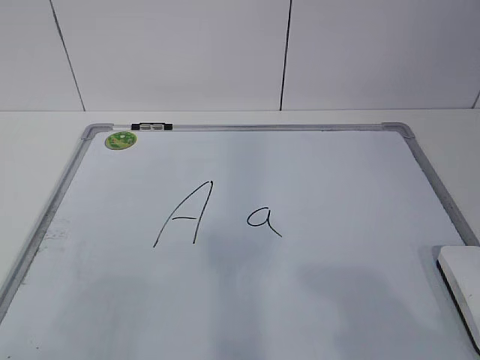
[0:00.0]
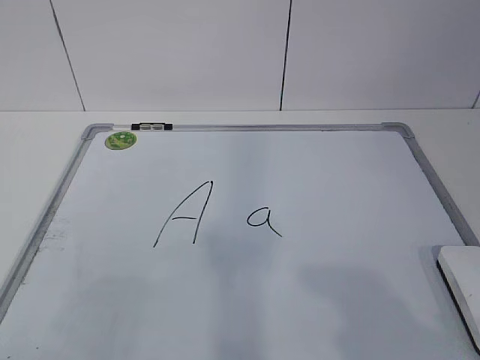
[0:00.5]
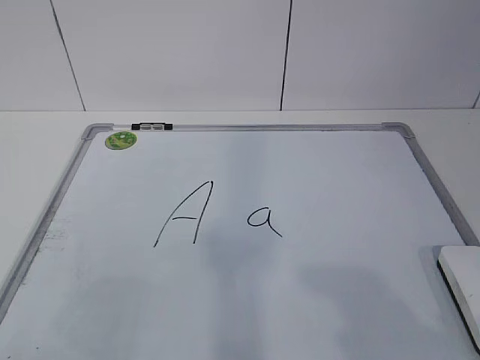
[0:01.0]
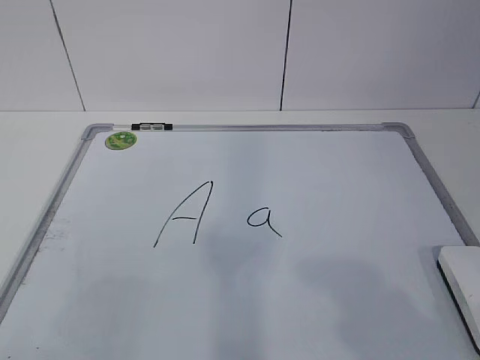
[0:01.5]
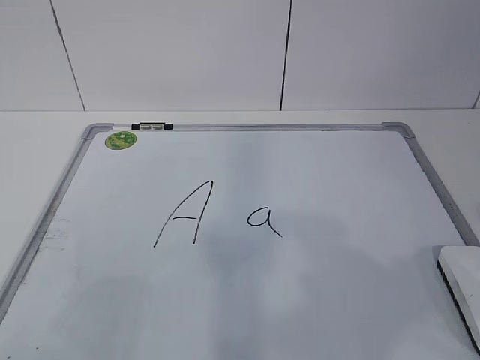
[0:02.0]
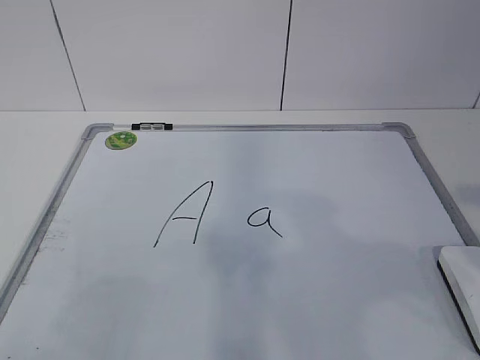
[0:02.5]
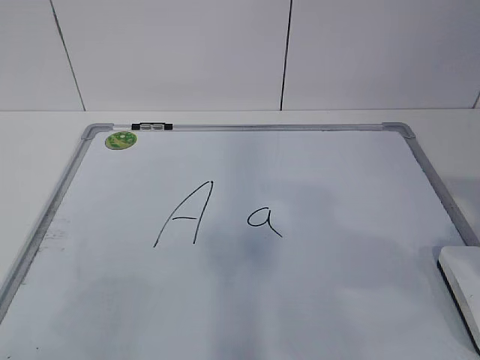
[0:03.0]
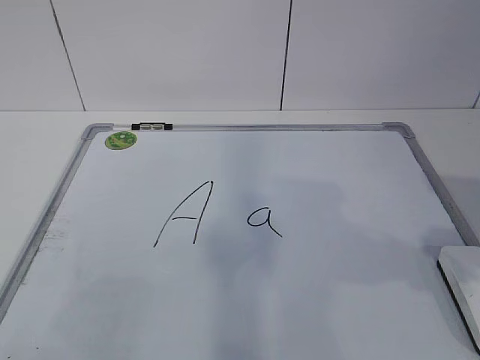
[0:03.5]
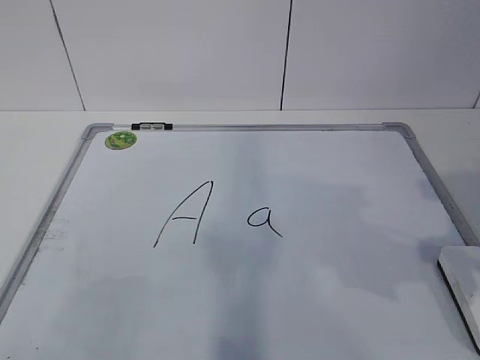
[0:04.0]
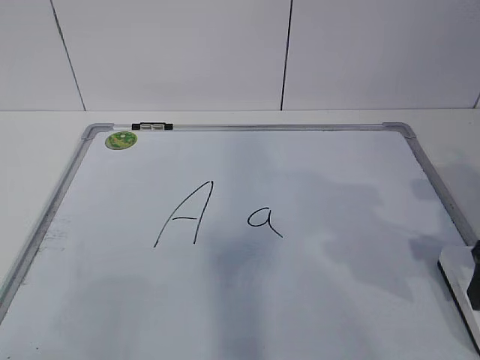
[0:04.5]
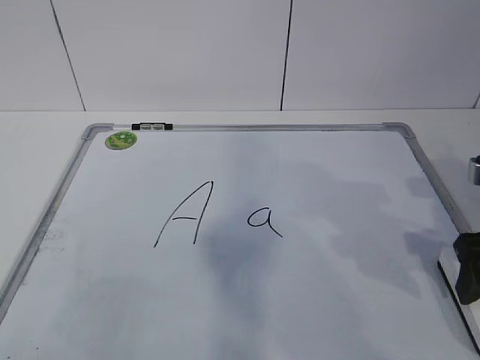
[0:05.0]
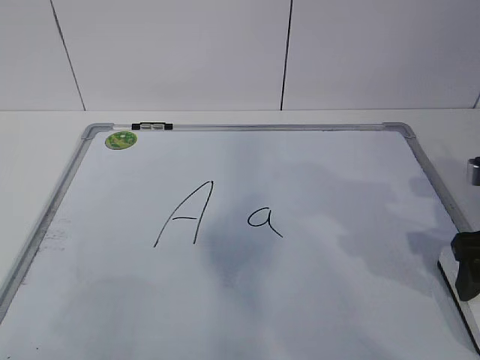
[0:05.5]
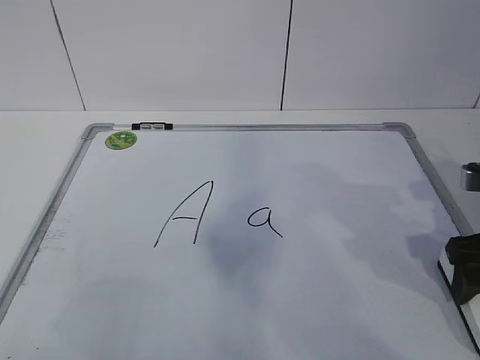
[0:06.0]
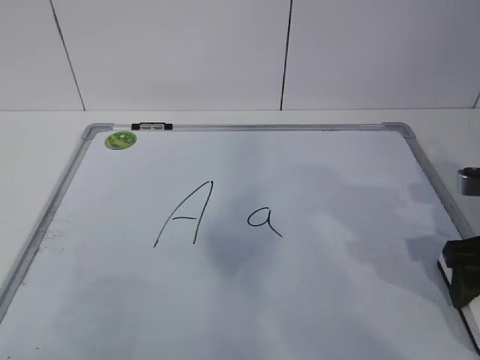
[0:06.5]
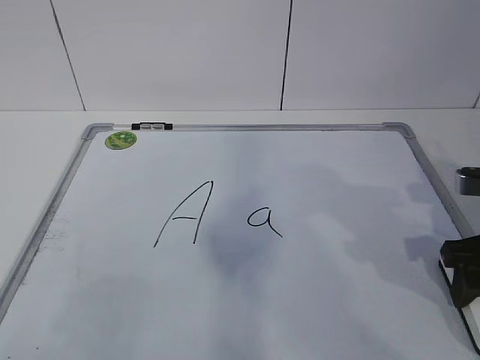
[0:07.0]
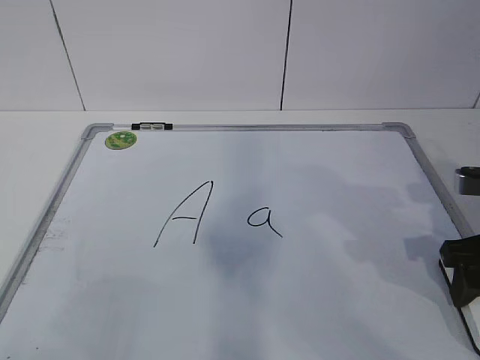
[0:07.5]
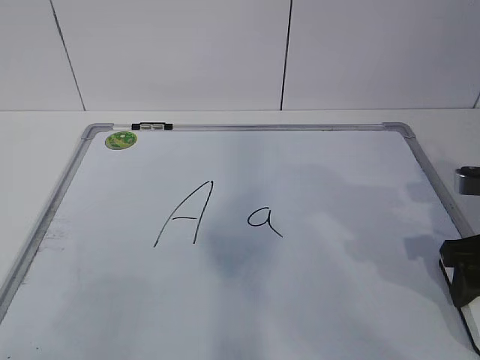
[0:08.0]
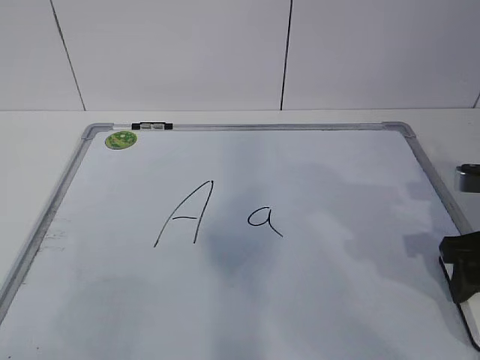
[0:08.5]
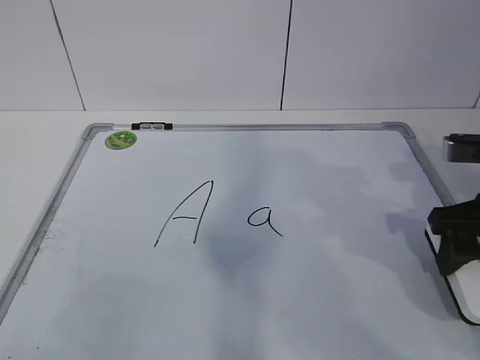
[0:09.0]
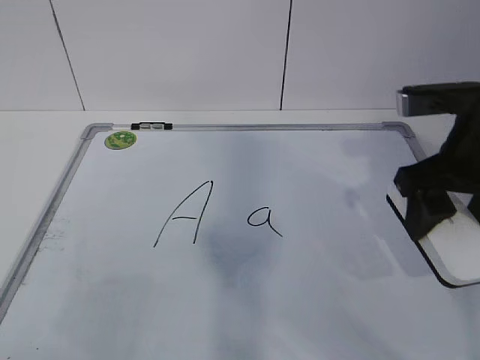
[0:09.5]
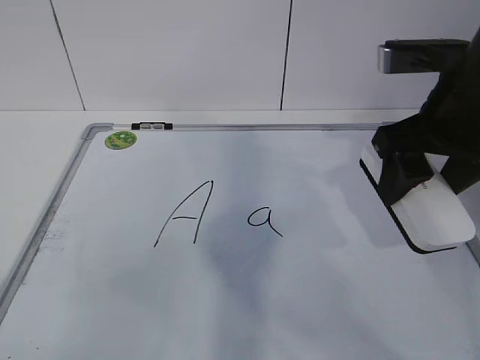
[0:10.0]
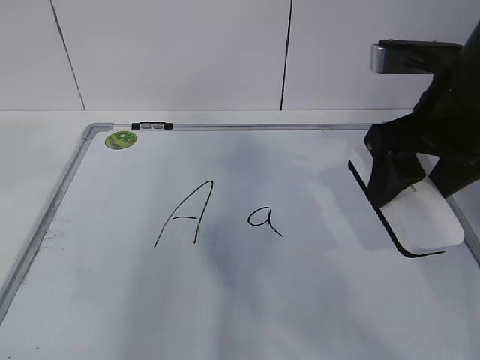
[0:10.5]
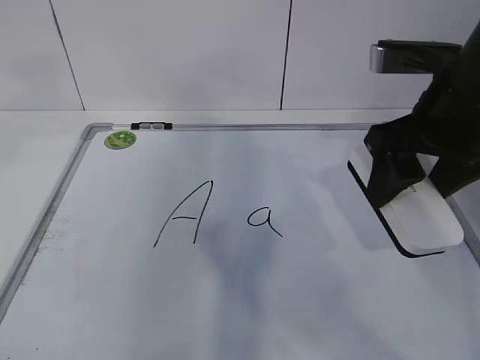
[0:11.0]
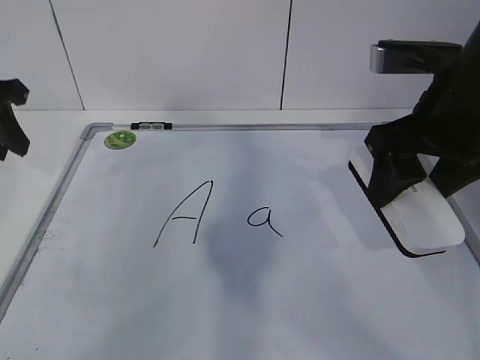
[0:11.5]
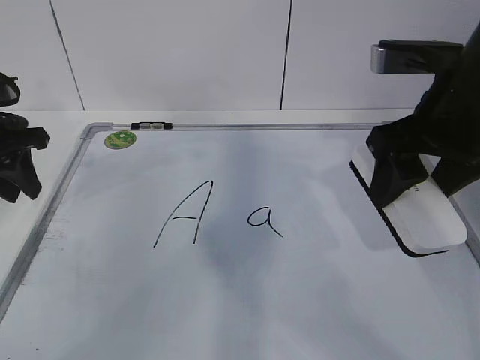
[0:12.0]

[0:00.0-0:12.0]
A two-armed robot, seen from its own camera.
Task of the whole recording: pick up the eraser on the blackboard and erase the letter "a".
Step, 0:06.0 to 0:11.0: Hold the drawing board steady with your left hand.
0:02.0 to 0:04.0: The right gripper moves forward and downward, approximately 15 cm, and opens its fingers.
0:04.0 to 0:06.0: The right gripper travels forward and downward by roughly 10 cm.
0:08.0 to 0:10.0: The right gripper is displaced upward and to the left by about 15 cm.
0:10.0 to 0:12.0: The left gripper goes approximately 35 cm forward.

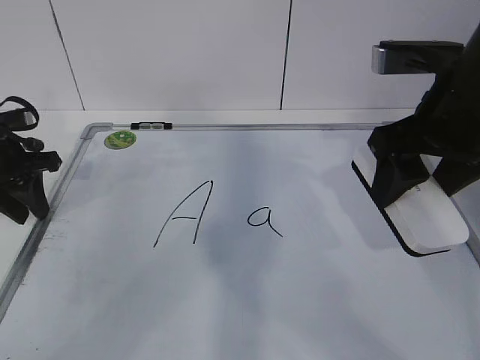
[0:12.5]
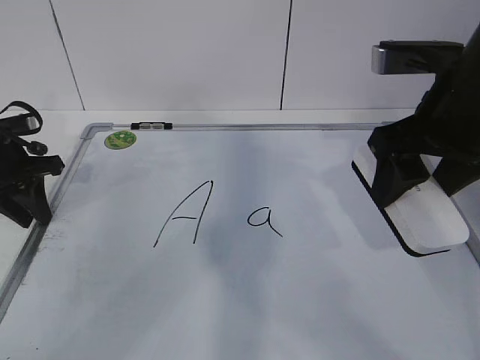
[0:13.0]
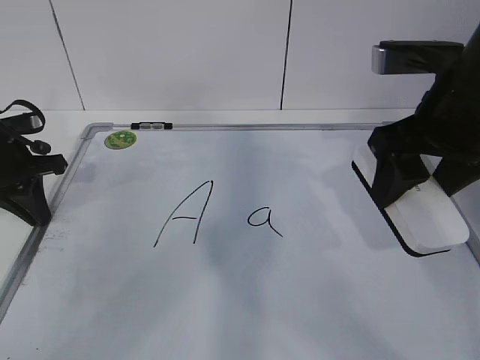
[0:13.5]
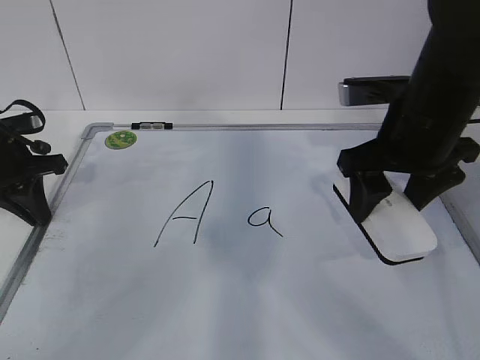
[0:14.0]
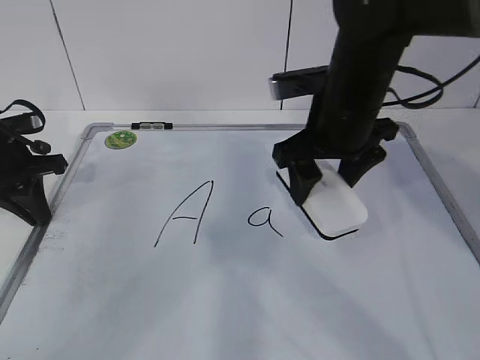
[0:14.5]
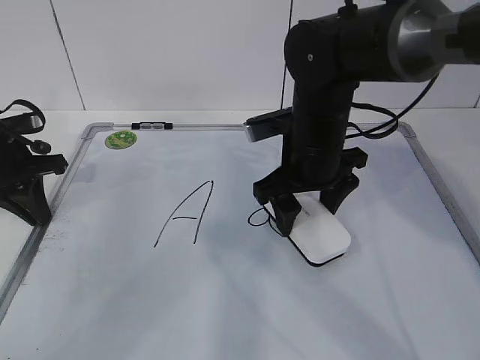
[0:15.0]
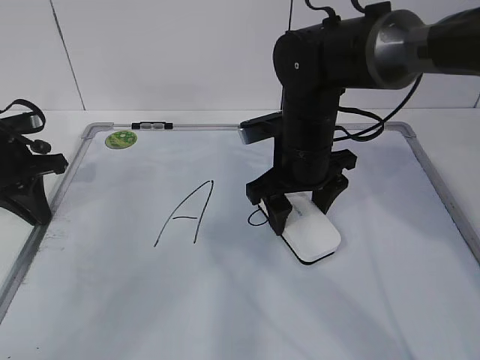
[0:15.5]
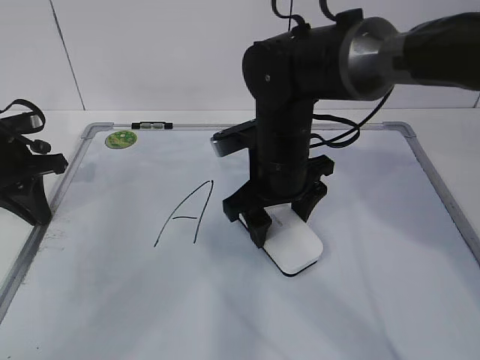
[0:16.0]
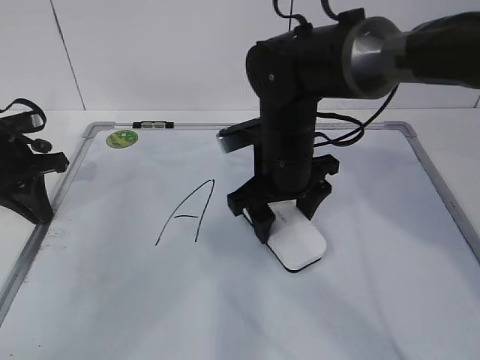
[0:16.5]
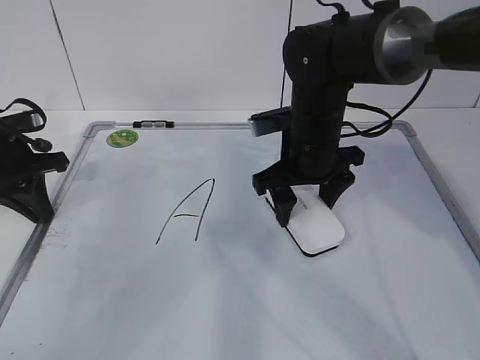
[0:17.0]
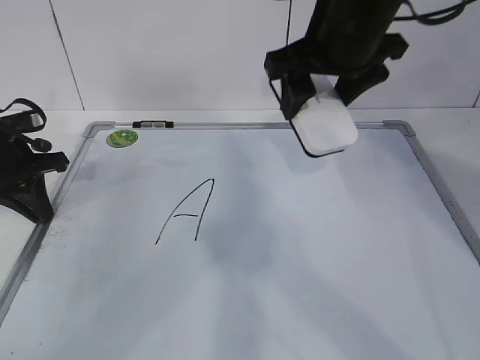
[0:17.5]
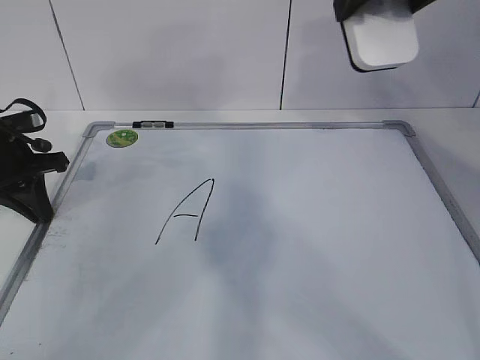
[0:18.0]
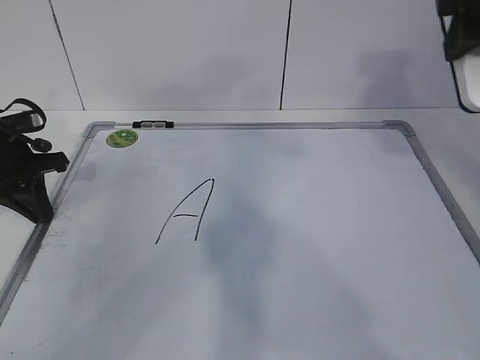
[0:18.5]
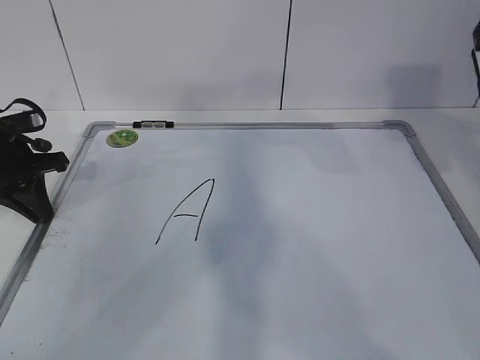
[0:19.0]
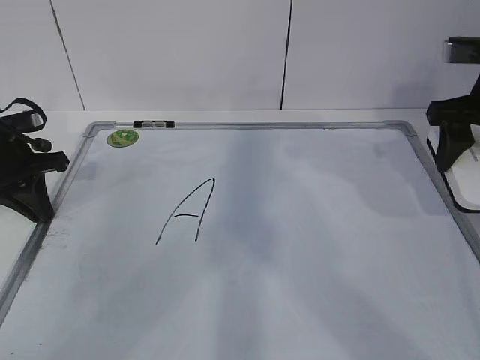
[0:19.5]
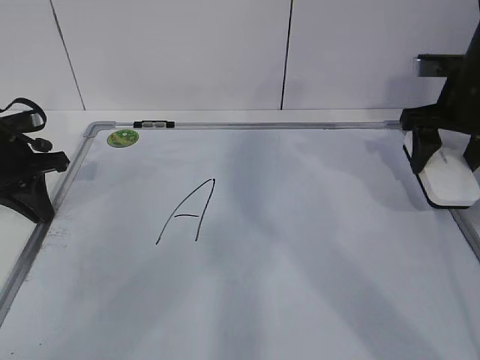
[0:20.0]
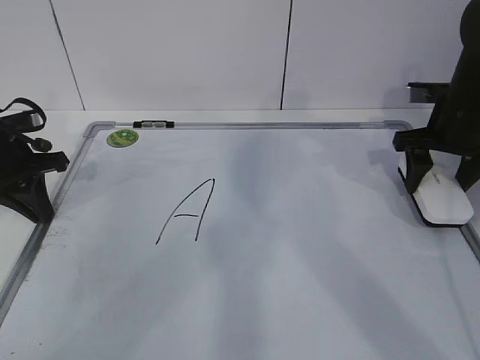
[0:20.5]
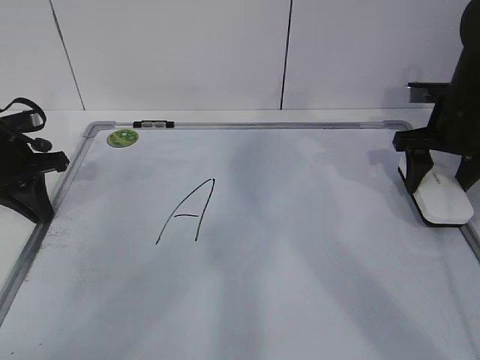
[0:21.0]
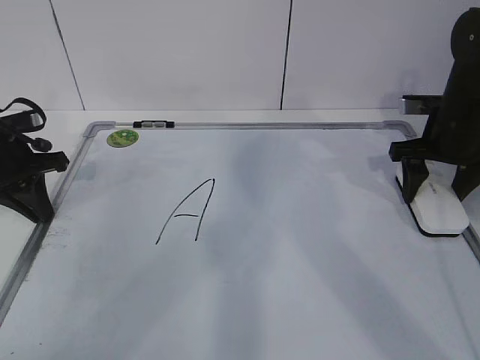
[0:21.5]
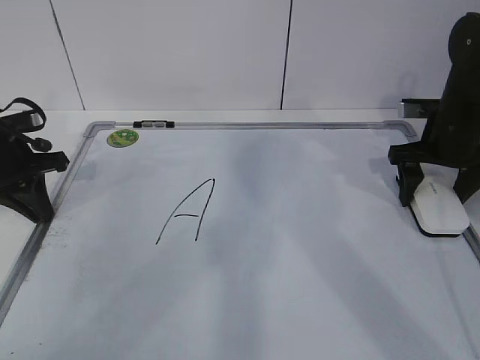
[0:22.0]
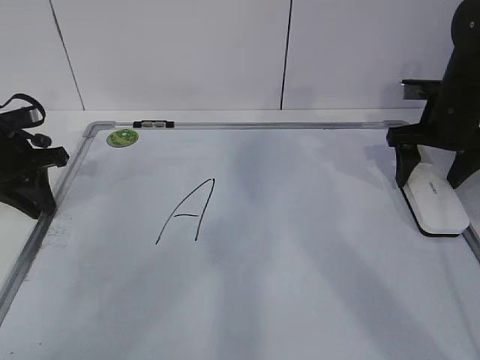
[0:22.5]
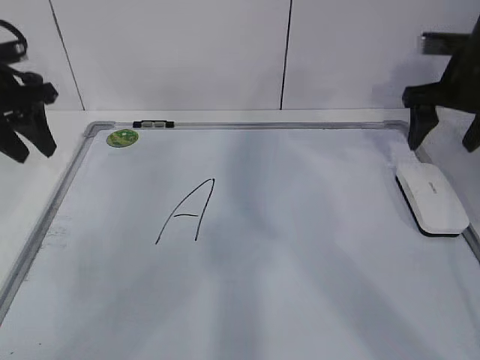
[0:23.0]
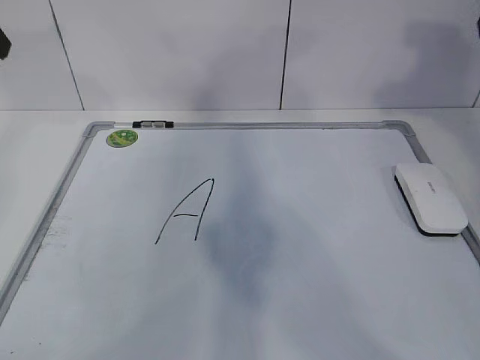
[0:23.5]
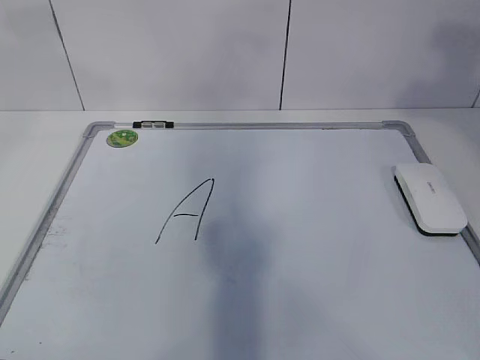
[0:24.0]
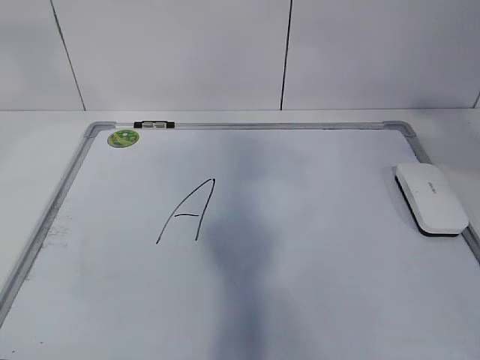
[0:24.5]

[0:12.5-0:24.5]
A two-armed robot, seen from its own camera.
Task of the whole recording: pick up the eraser on the blackboard and erase the letter "a".
Step, 0:12.5 to 0:14.0: Erase the letter a with your right hand.
Step, 0:14.5 to 0:18.0: Put down the eraser with your right hand.
0:12.5 to 0:14.5: The left gripper closes. Meanwhile the right gripper moves to the left, forward and downward, approximately 10 cm.
0:14.5 to 0:16.5: The right gripper moves downward, approximately 5 cm.
0:16.5 to 0:18.5: The right gripper is displaced upward and to the right by some 25 cm.
0:18.5 to 0:20.5: The right gripper shifts approximately 25 cm downward and forward.
0:20.5 to 0:22.5: The right gripper opens up. The left gripper opens its fingers.
0:22.5 to 0:24.5: The left gripper heads upward and backward, covering roughly 40 cm; the right gripper goes about 40 cm backward and upward, and closes up.

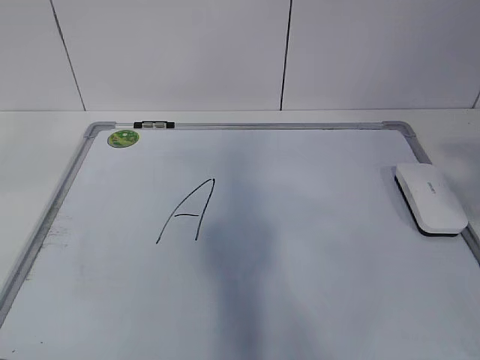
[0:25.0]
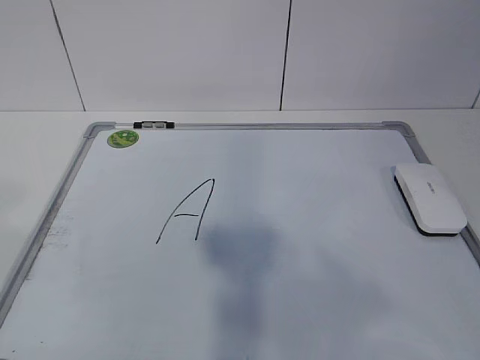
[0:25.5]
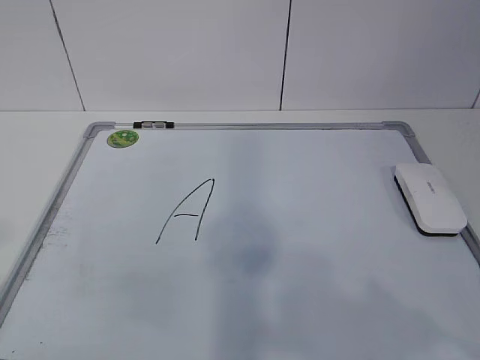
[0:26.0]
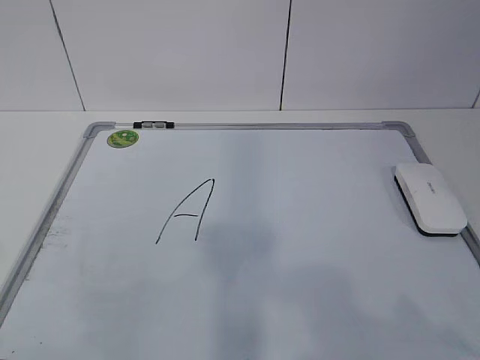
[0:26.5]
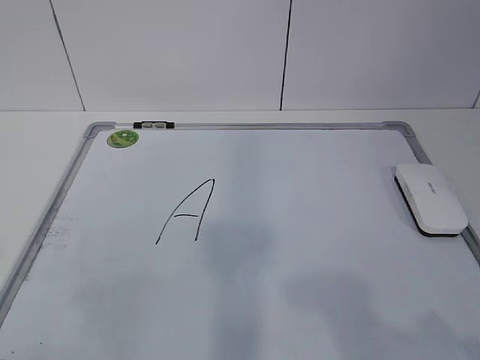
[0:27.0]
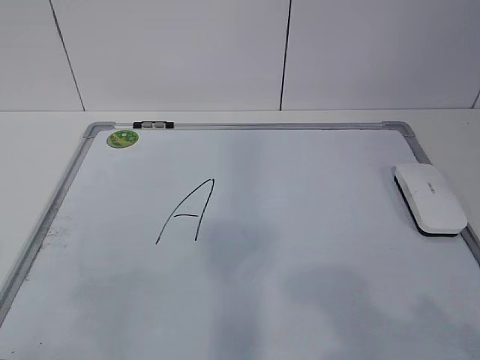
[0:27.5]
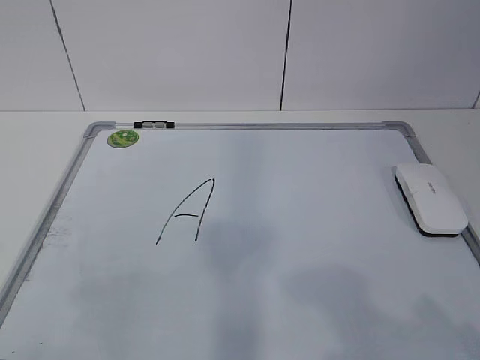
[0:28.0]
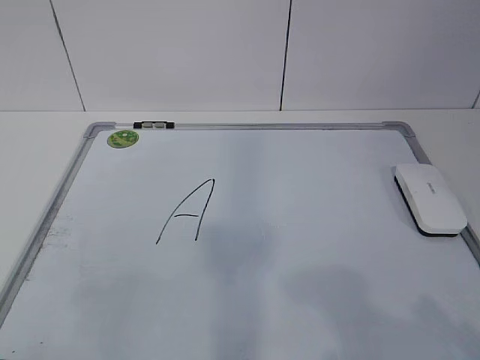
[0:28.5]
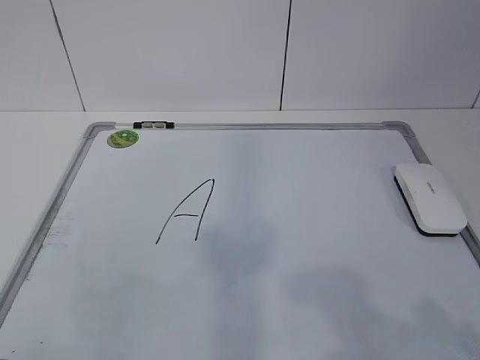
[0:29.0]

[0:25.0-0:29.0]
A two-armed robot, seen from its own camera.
Task of the whole recording: pick up the eraser on the blackboard and erase the letter "a".
0:25.0 to 0:27.0: The two grippers go roughly 15 cm downward.
